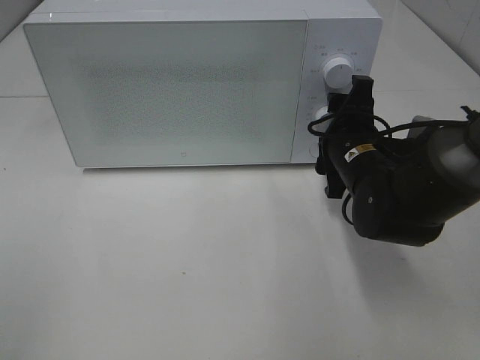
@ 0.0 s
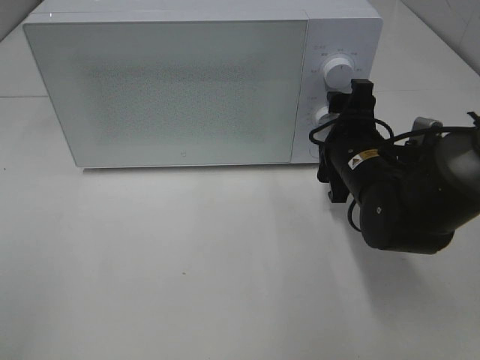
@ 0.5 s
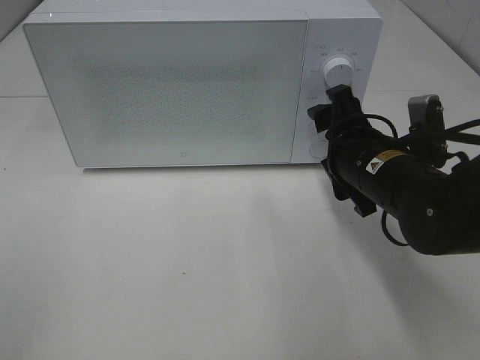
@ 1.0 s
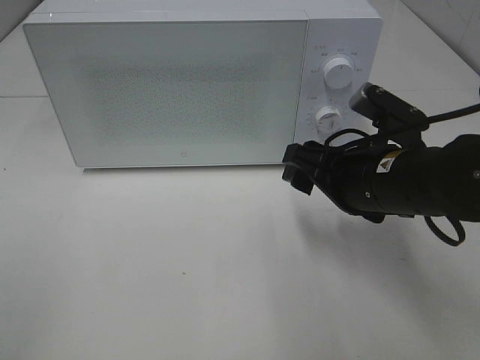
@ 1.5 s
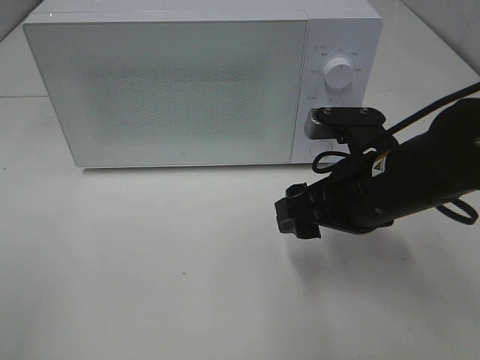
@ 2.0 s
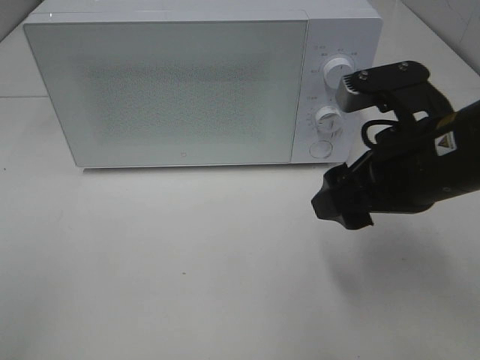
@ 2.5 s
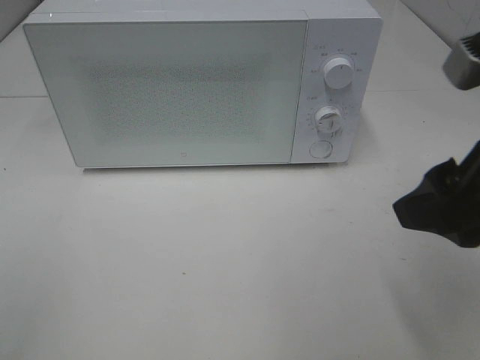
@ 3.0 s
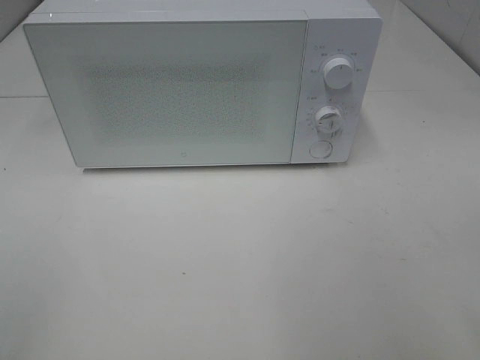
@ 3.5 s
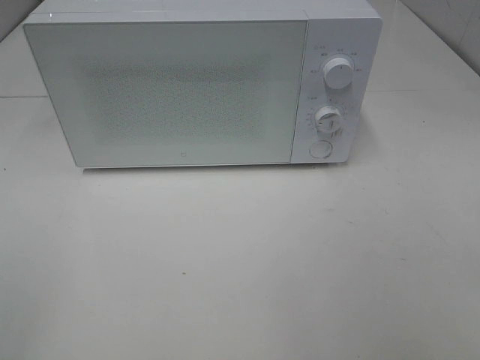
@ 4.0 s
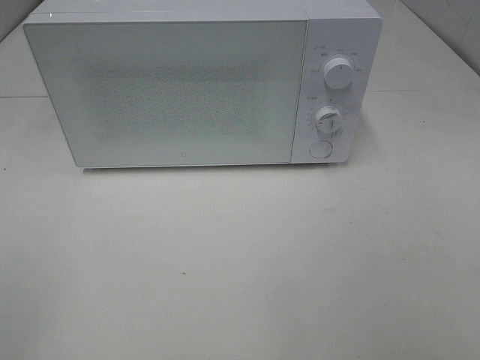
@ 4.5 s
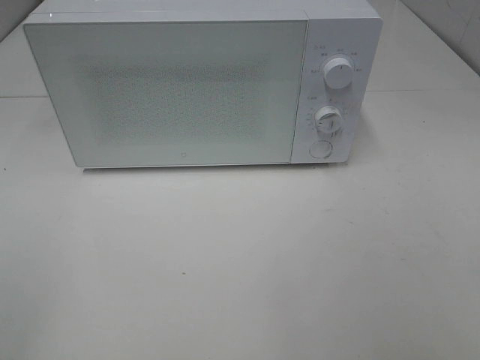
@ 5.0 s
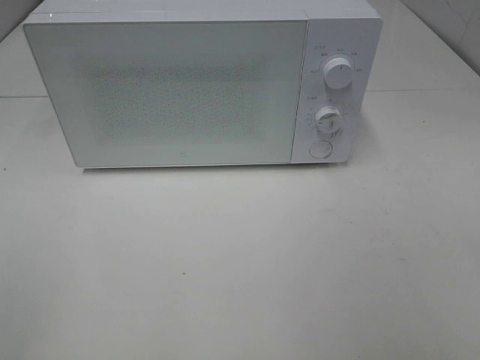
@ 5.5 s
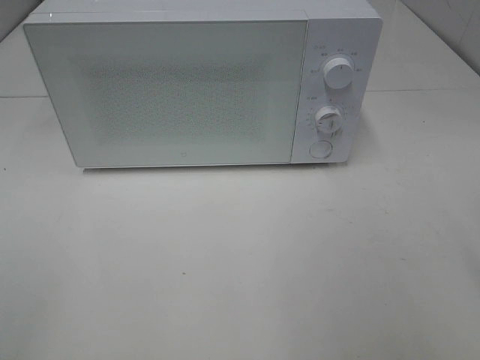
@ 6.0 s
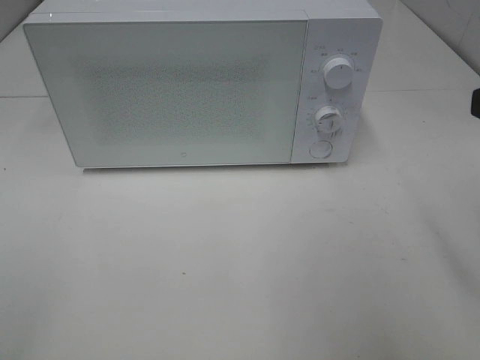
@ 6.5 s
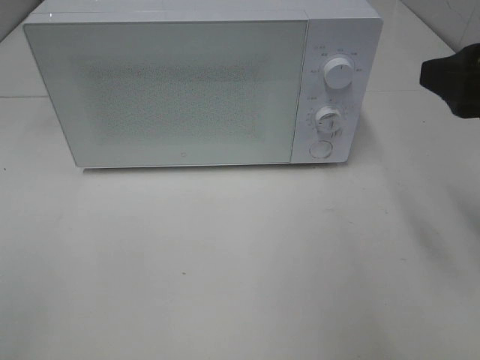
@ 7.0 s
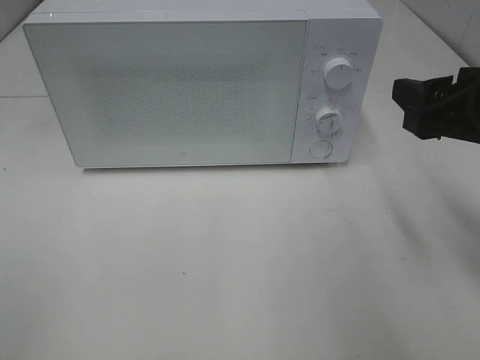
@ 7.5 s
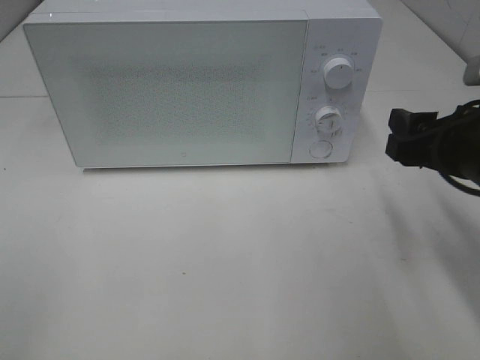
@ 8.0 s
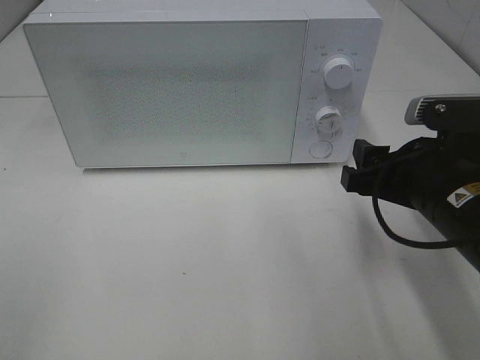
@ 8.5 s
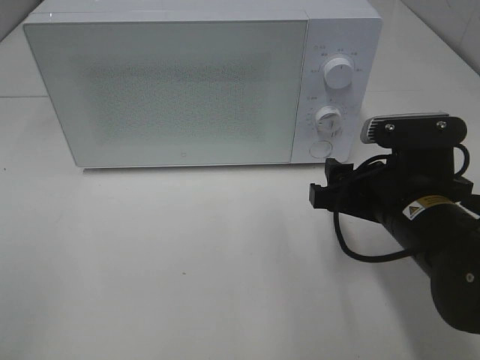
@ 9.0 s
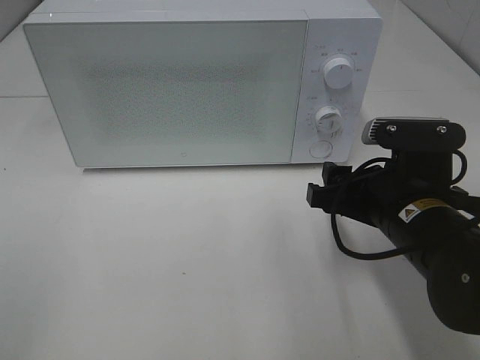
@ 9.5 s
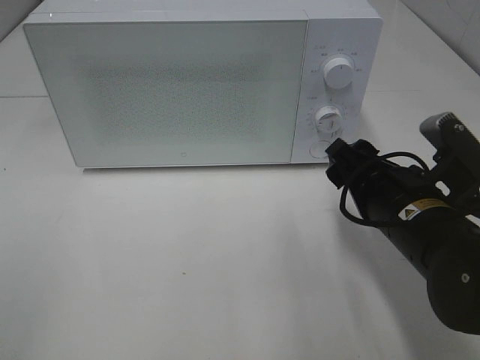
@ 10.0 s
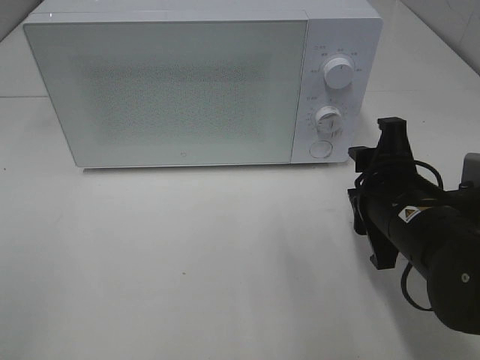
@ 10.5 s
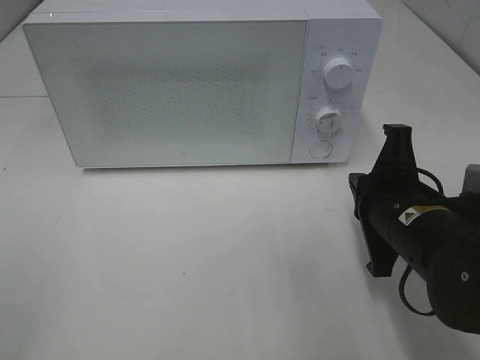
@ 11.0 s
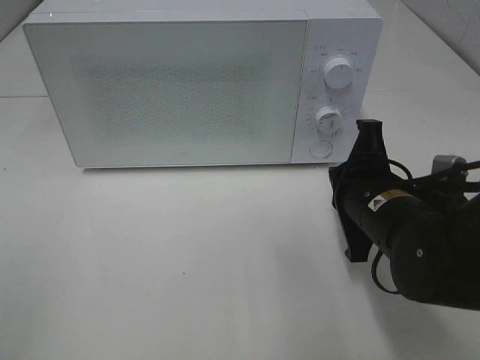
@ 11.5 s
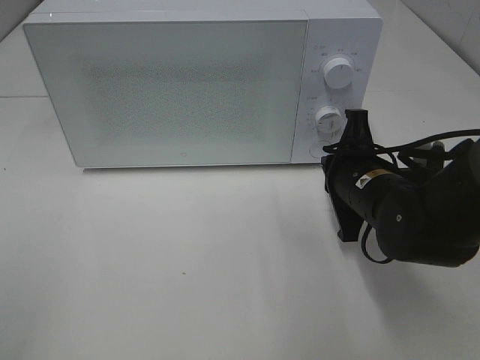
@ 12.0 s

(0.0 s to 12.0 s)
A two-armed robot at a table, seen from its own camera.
Task of the whole recording: Heat Sandwich.
0.0 s - 2.0 s: The right gripper is displaced backward by about 10 cm.
2.0 s - 4.0 s: The right gripper is displaced backward, to the right and upward by about 30 cm.
6.0 s - 8.0 s: The right gripper shifts roughly 15 cm forward and downward.
8.0 s - 10.0 s: The right gripper is displaced to the left and downward by about 10 cm.
10.0 s - 12.0 s: The right gripper travels forward by approximately 5 cm, and closes.

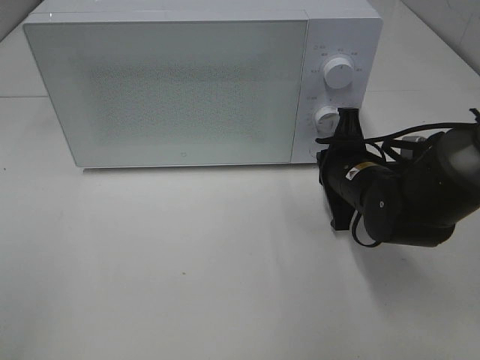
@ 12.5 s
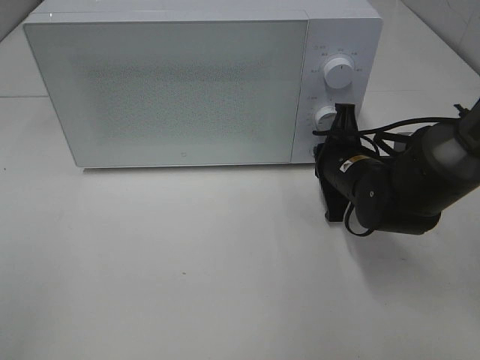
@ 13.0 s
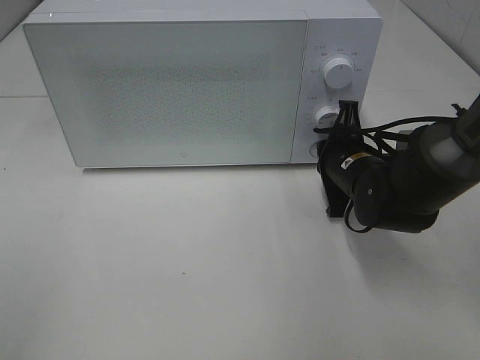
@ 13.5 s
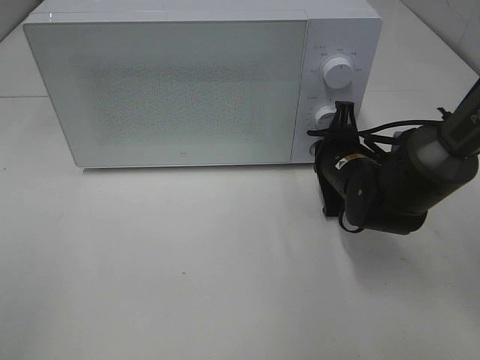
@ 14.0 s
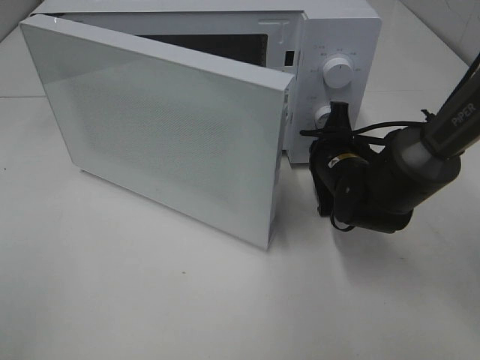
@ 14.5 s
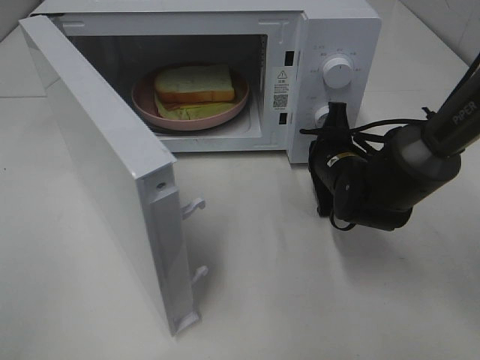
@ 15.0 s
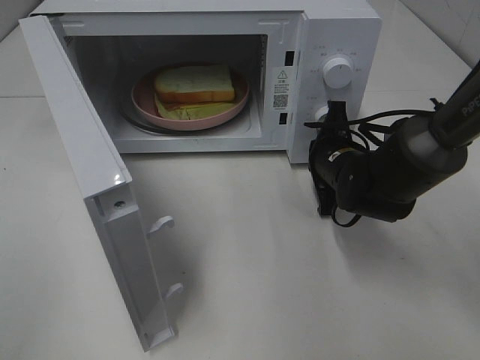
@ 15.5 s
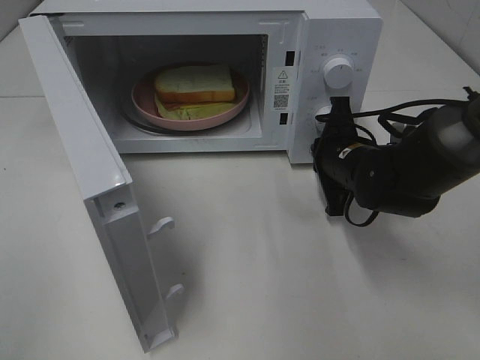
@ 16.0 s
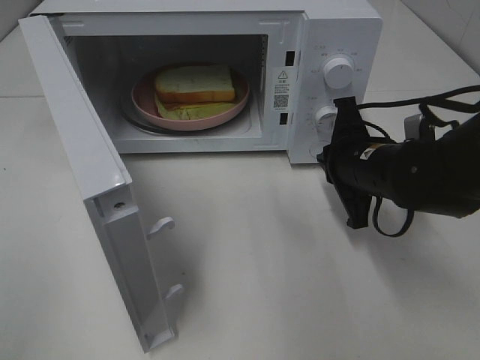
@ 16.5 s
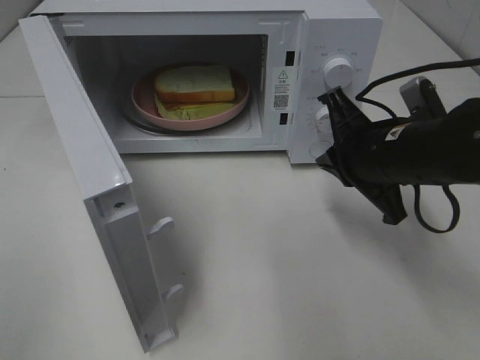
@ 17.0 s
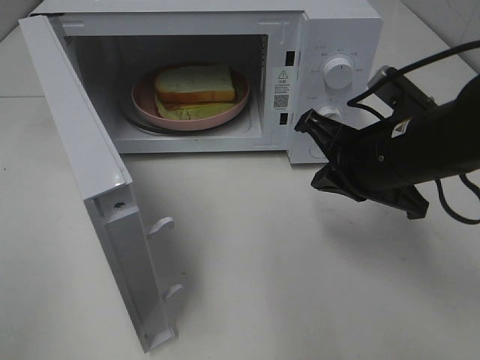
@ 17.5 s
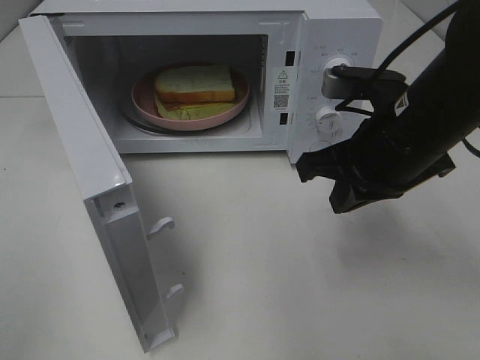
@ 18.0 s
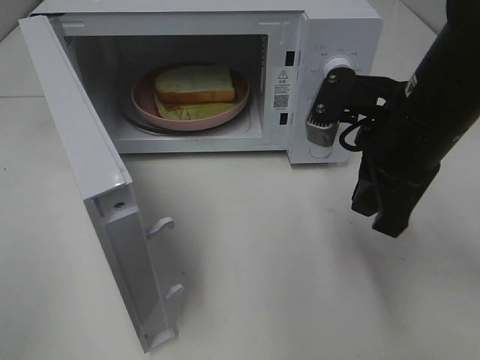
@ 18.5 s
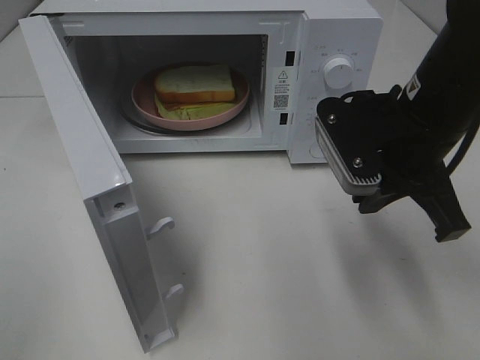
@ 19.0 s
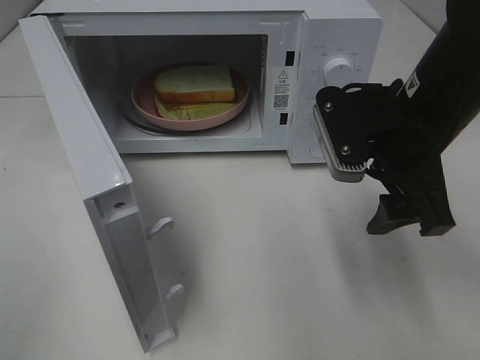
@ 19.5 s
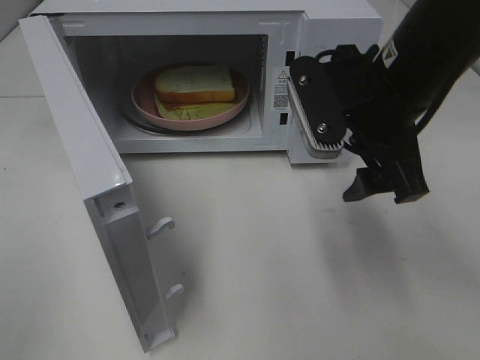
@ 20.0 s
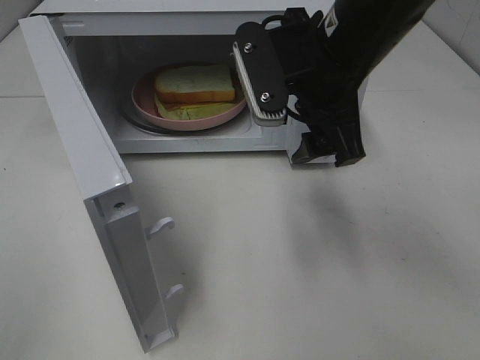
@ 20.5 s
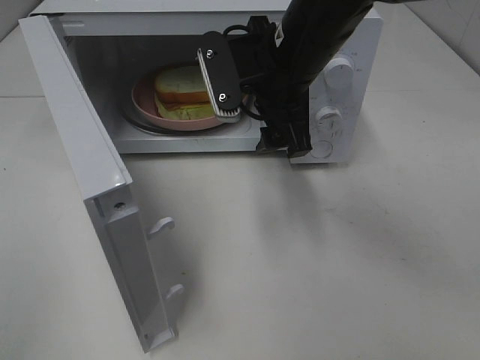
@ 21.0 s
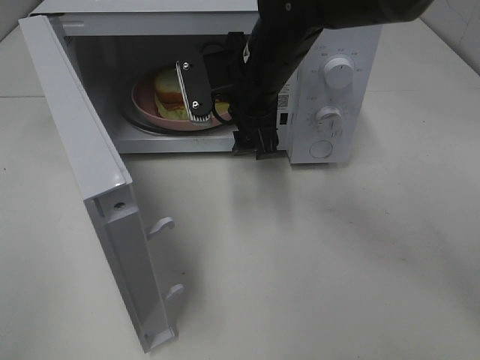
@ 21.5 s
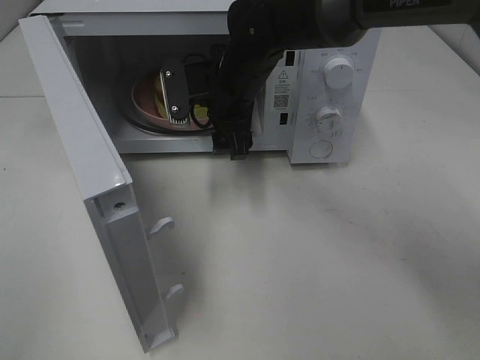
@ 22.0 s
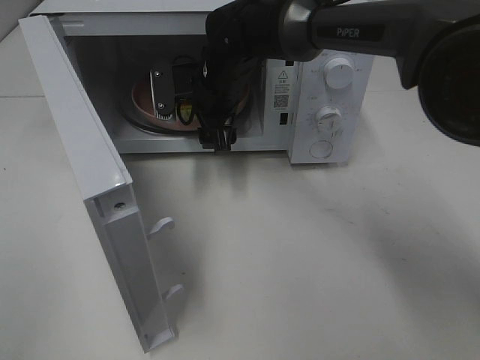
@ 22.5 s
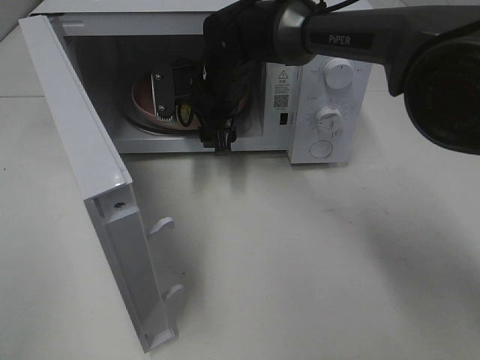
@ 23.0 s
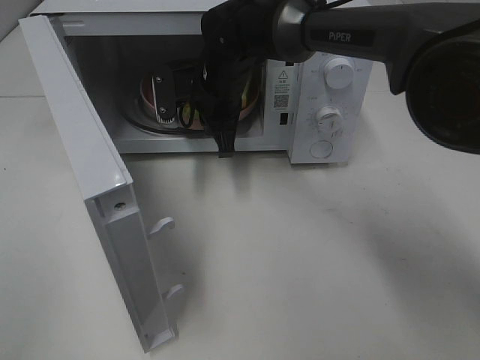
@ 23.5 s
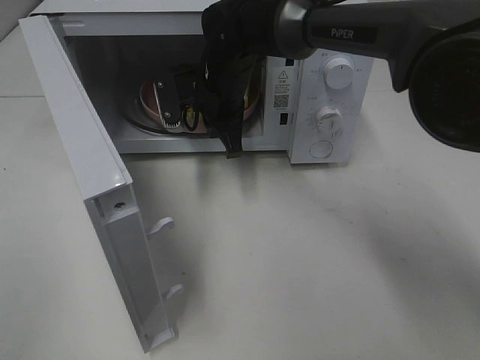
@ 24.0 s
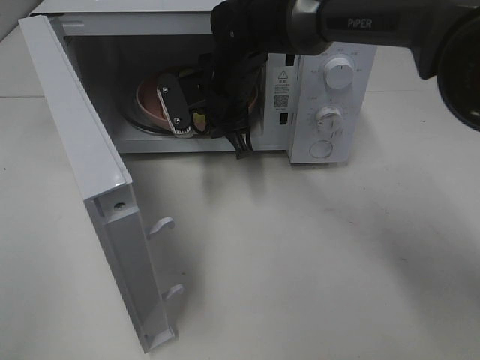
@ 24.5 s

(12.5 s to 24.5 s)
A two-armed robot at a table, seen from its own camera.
Task of the whole recording: Heat Sandwich.
Step, 12.5 s - 16.0 s: Right hand: press the switch.
Step, 16.5 s - 24.0 s: Right hand: grab the plate with the sandwich.
12.5 s - 14.5 s: The grippers stay close to where they were, moving slightly.
14.5 s - 16.5 s: The right gripper changes place by roughly 5 cm.
16.5 s - 18.5 s: The right gripper shifts about 10 cm upward.
18.5 s - 20.5 s: The right gripper moves to the left, roughly 5 cm, and opens up.
20.5 s - 22.5 s: The right gripper is displaced forward, downward and to the left by roughly 20 cm.
22.5 s - 24.5 s: The right gripper closes up.

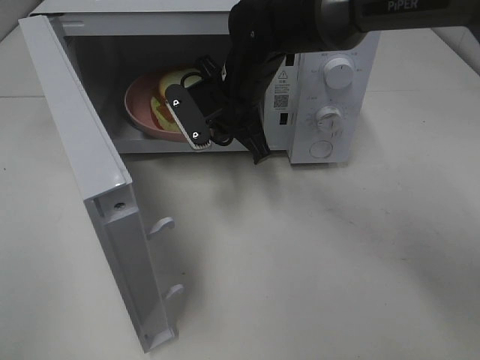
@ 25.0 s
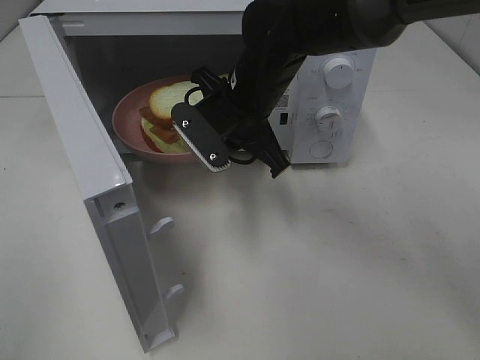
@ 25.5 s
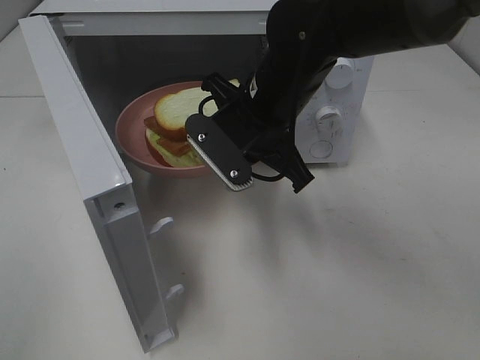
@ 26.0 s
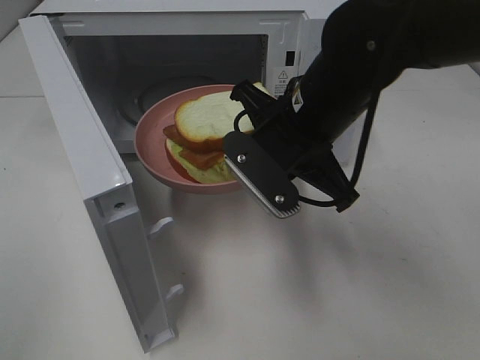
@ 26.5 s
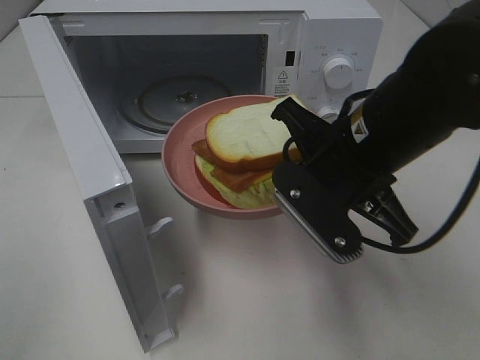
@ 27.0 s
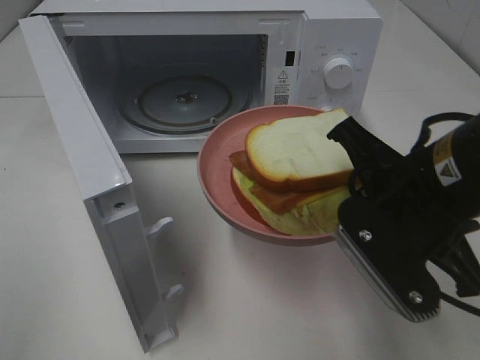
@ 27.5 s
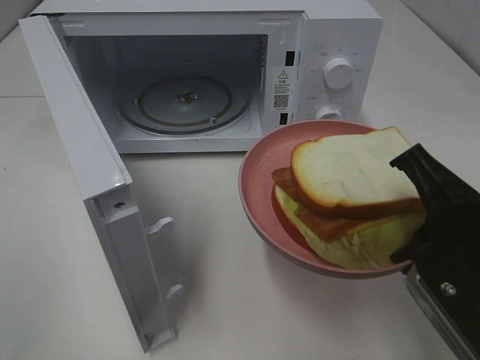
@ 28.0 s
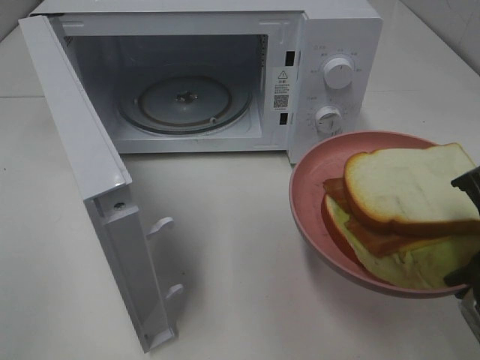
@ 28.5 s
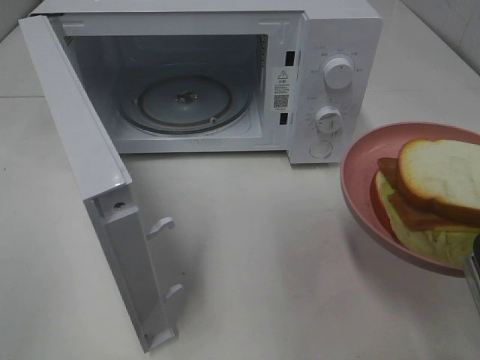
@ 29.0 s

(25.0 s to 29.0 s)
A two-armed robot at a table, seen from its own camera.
Task of the whole recording: Heat Sandwich.
25.0 s - 27.0 s: The right gripper moves backward and to the right, about 20 cm.
27.0 s - 29.0 s: The right gripper goes about 15 cm to the right and backward.
